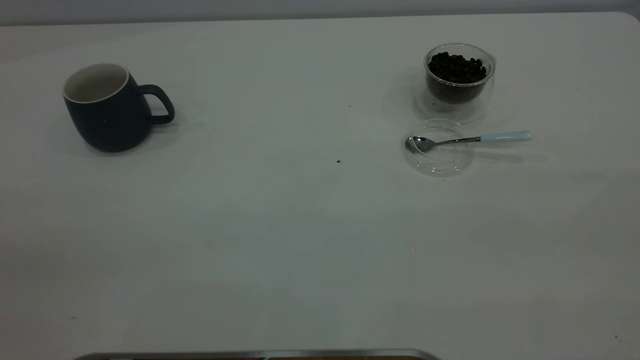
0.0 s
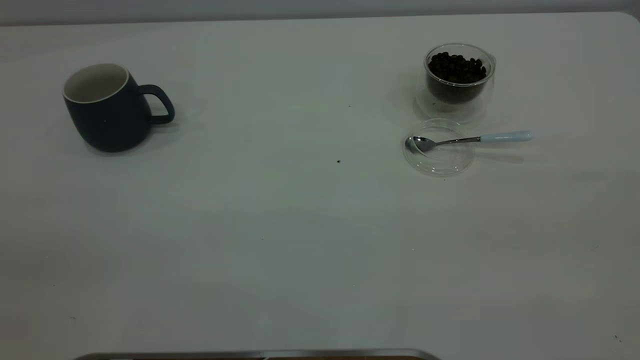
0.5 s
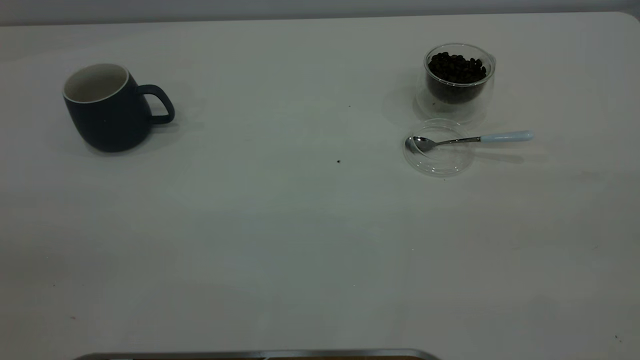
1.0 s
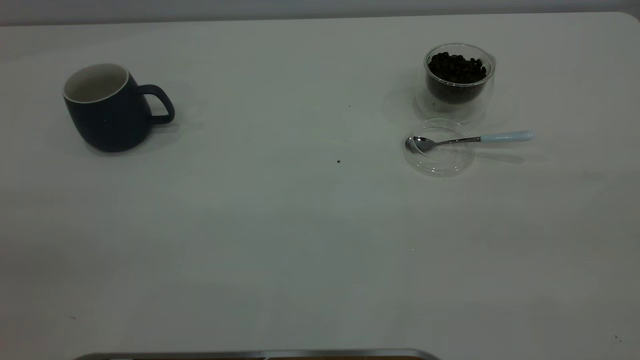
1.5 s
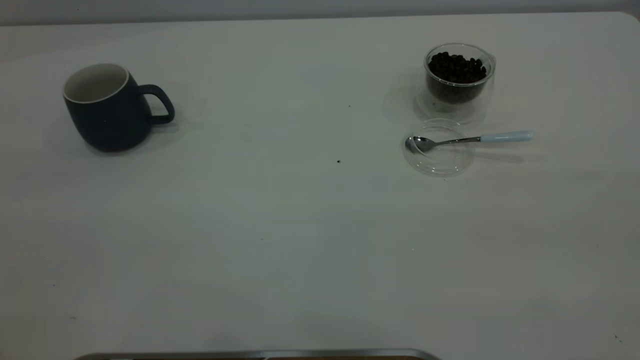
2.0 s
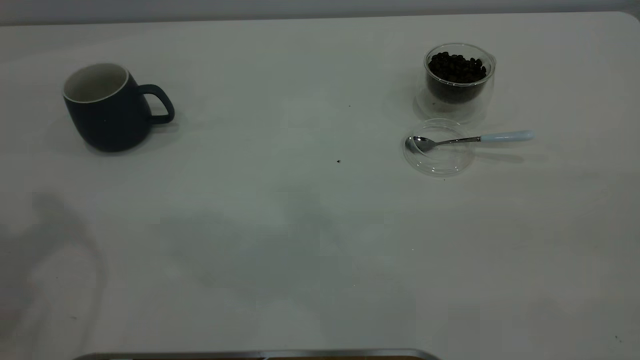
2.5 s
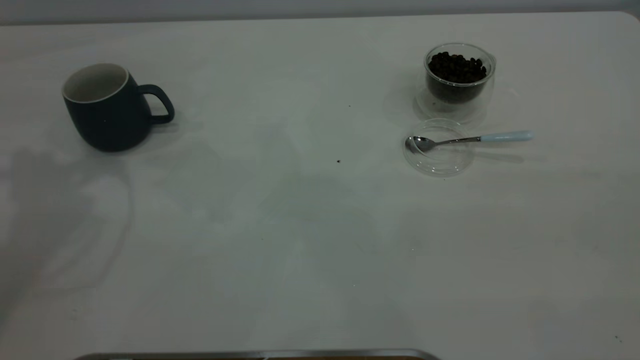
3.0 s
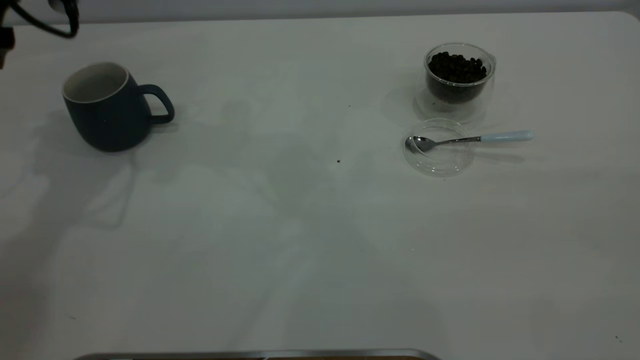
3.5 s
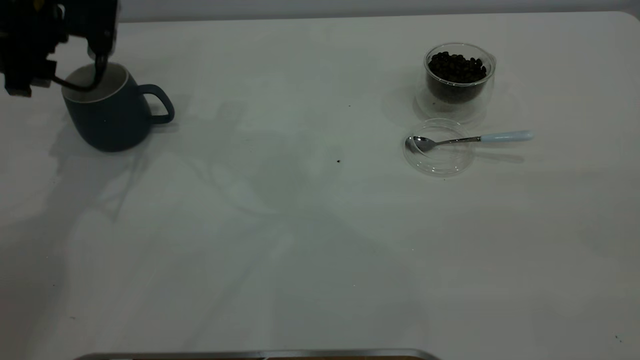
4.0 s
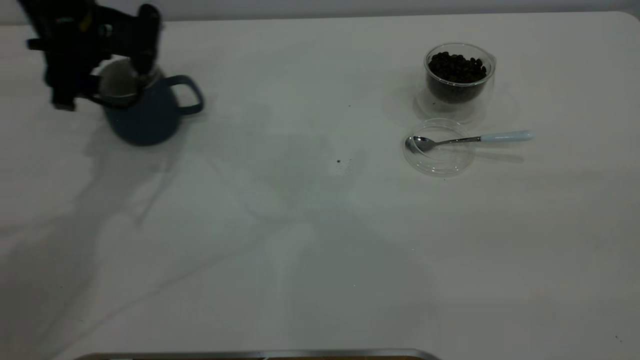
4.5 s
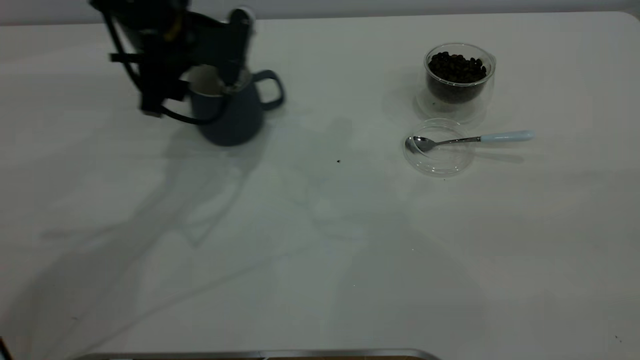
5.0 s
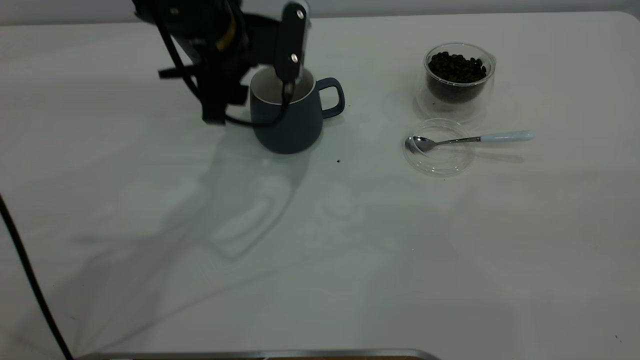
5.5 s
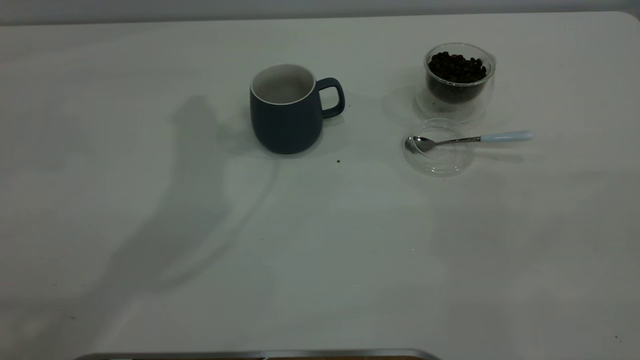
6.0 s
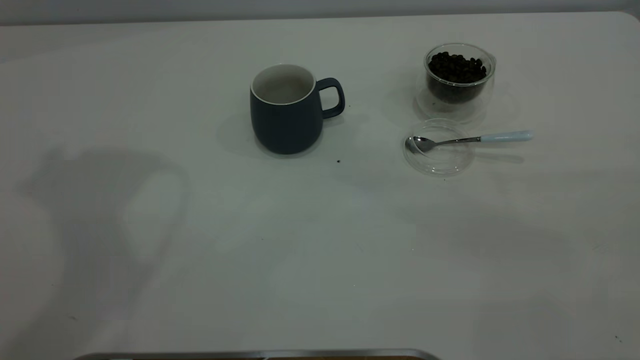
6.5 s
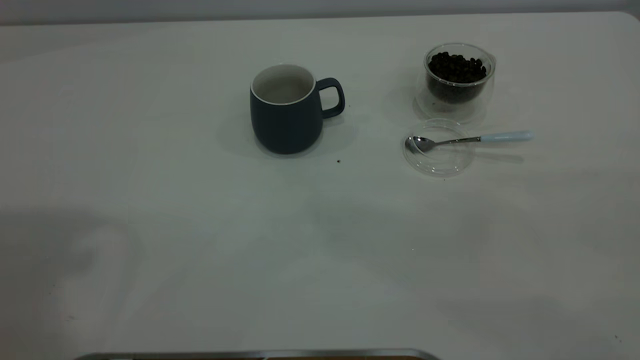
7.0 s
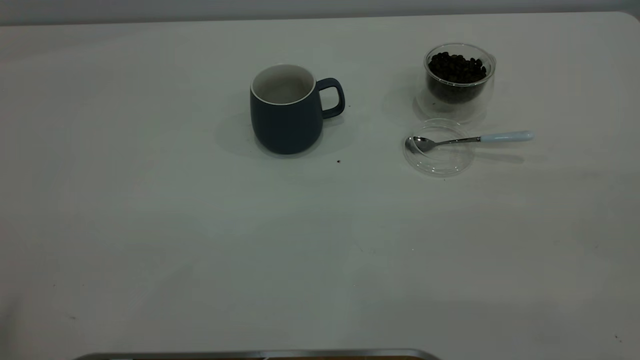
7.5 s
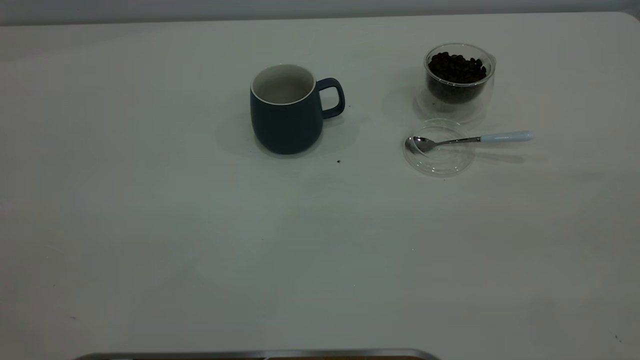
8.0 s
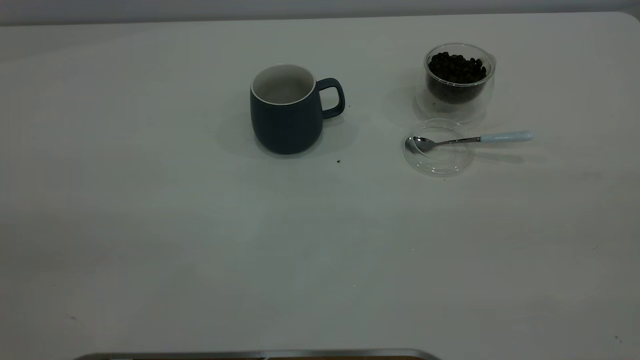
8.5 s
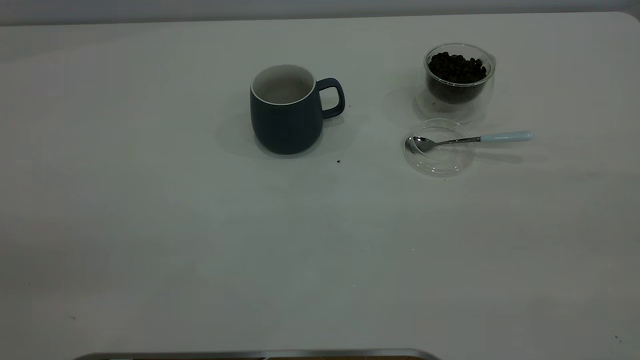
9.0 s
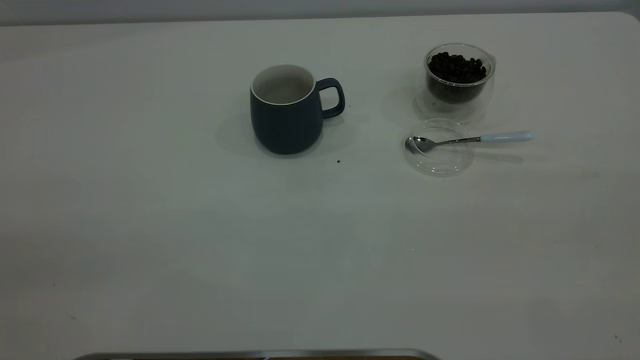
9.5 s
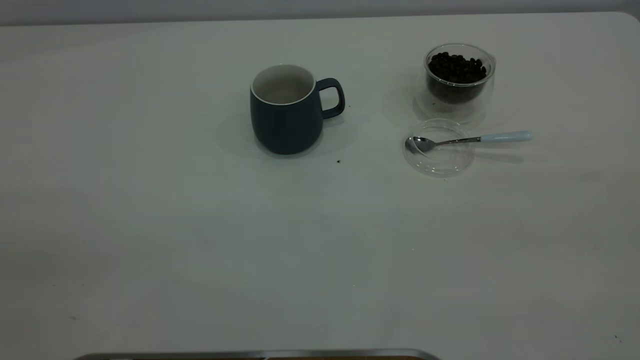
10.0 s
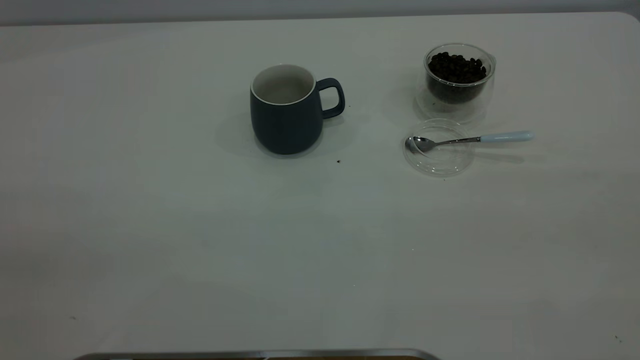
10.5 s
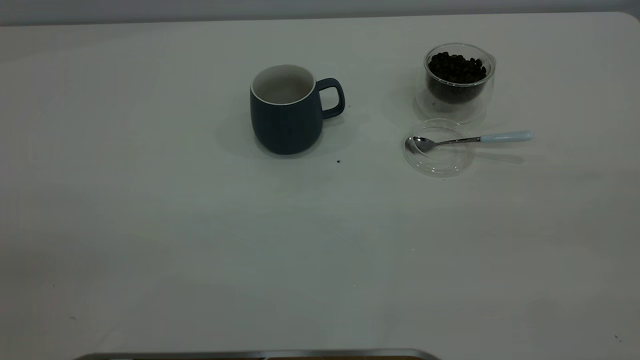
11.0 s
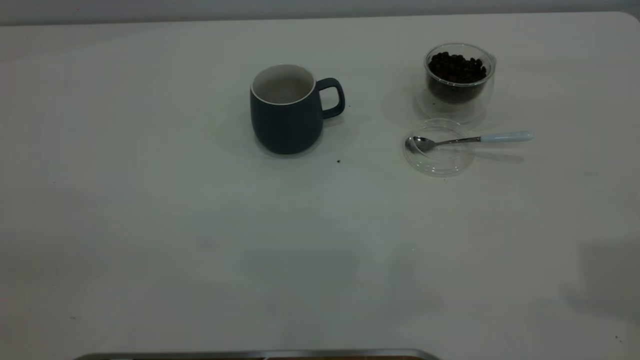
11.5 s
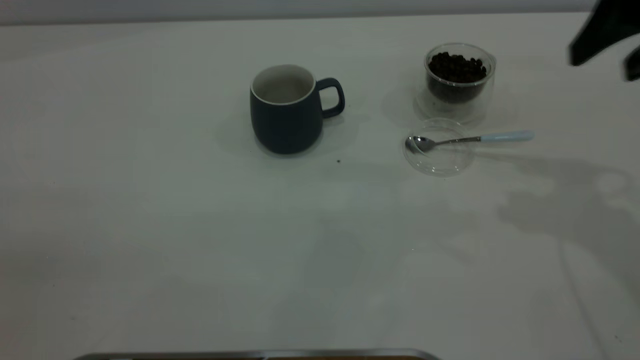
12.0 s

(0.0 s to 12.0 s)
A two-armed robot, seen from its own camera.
Task of the whole recording: the left gripper place the grey cup in the center of the table, the right gripper take the blue spoon from the cup lid and scoop out the coffee beans from the coffee cup and put them into the grey cup, the right gripper put the spoon back into the cup lid.
Step, 0.0 s - 5.5 s: Move the cup to the center of view.
2.0 s - 4.0 s: The left gripper is displaced forward and downward by approximately 40 cm.
4.0 s - 6.0 s: The left gripper goes about 25 cm upward and to the right.
10.0 s - 12.0 s: The right gripper moves forward, about 30 cm.

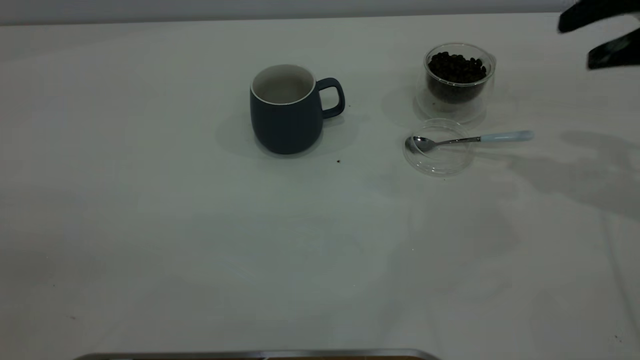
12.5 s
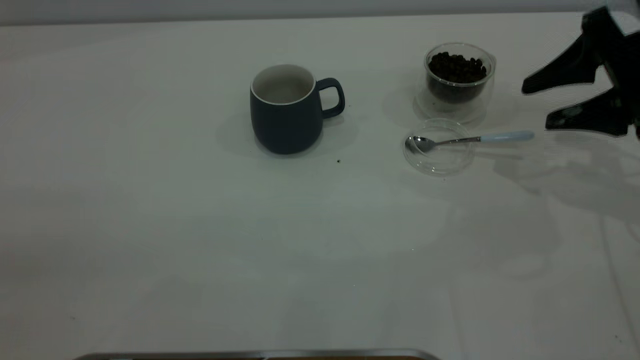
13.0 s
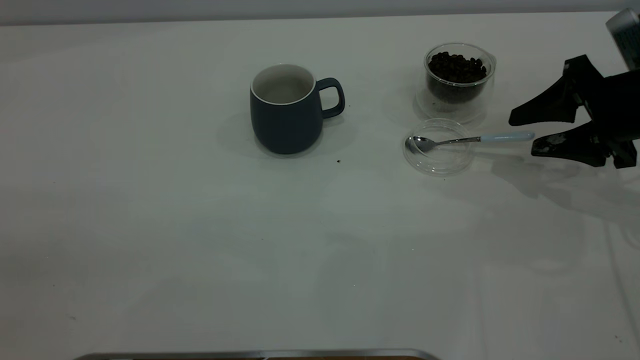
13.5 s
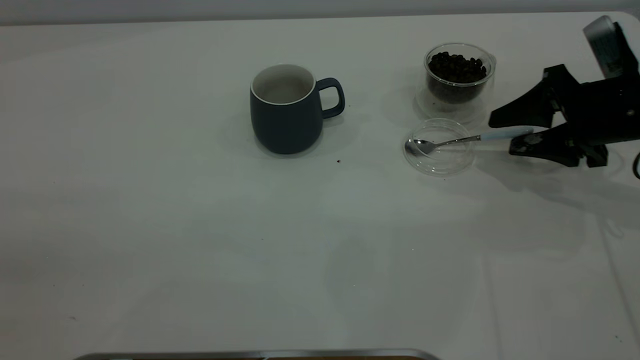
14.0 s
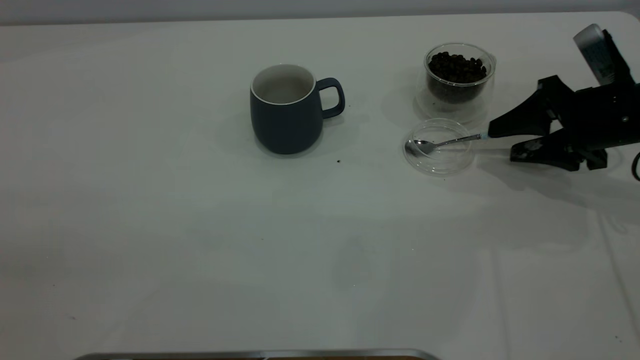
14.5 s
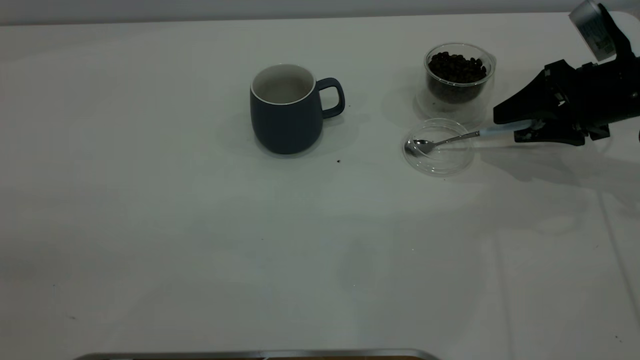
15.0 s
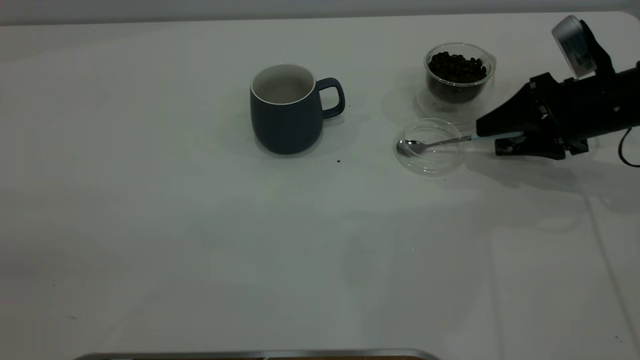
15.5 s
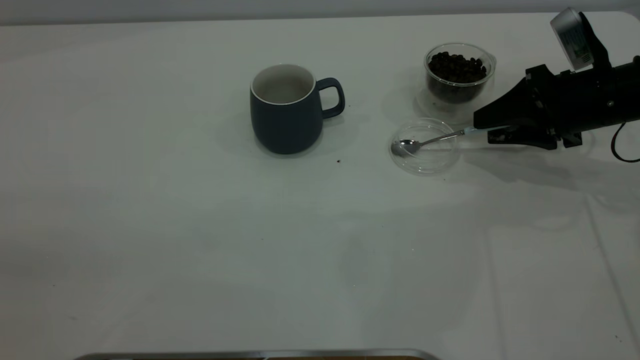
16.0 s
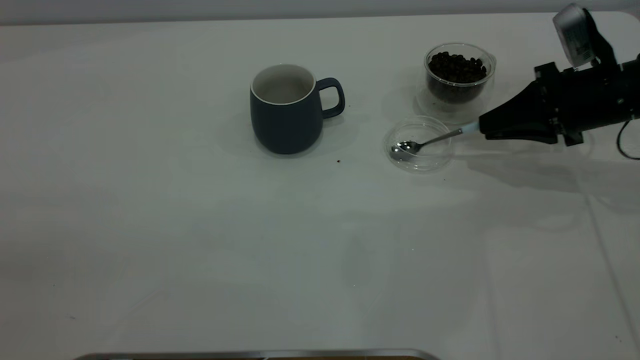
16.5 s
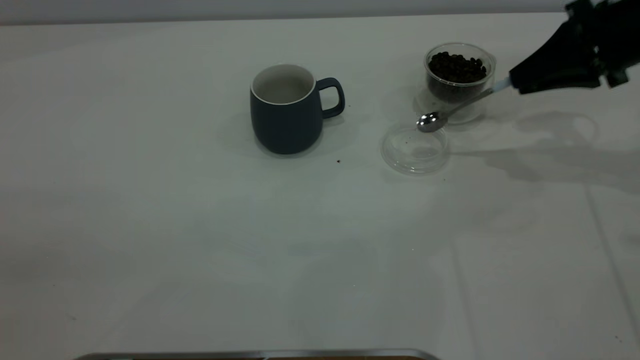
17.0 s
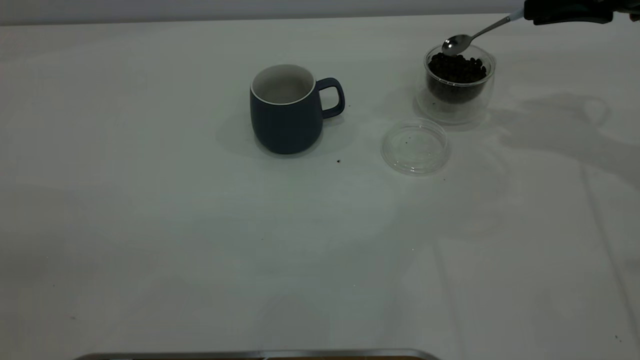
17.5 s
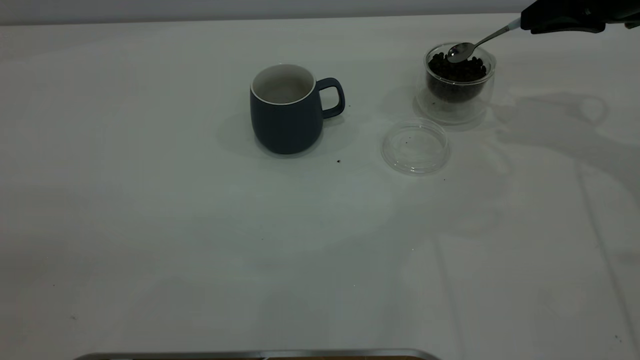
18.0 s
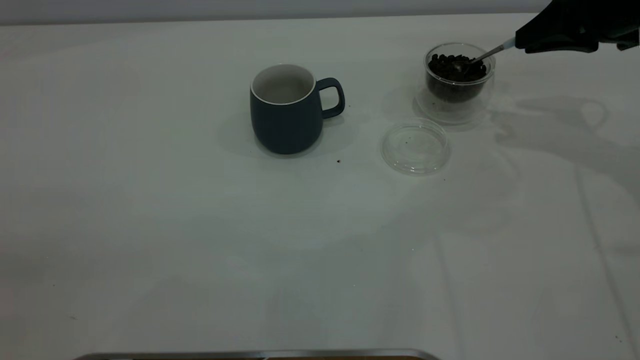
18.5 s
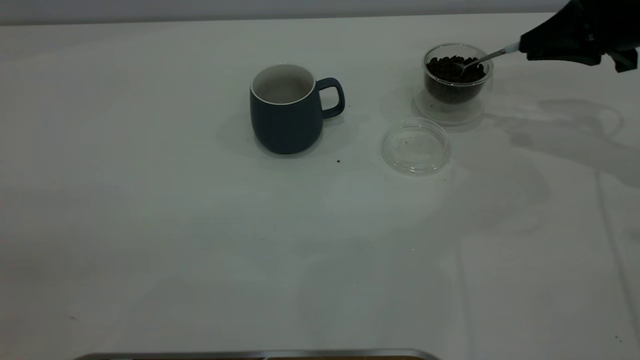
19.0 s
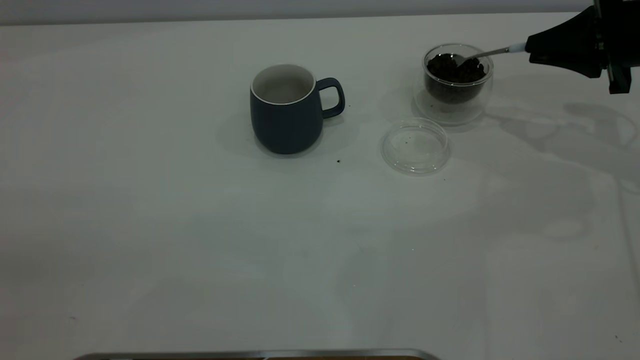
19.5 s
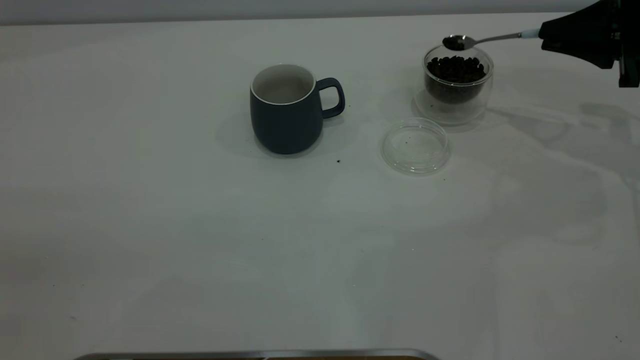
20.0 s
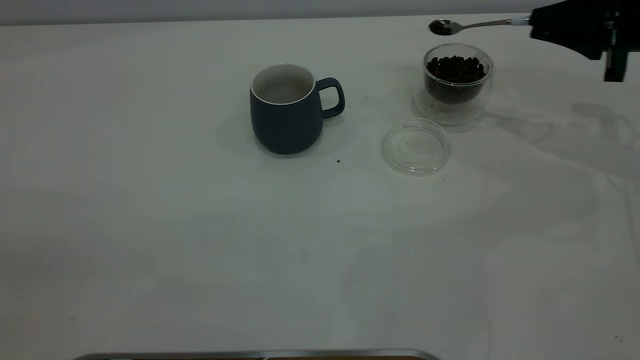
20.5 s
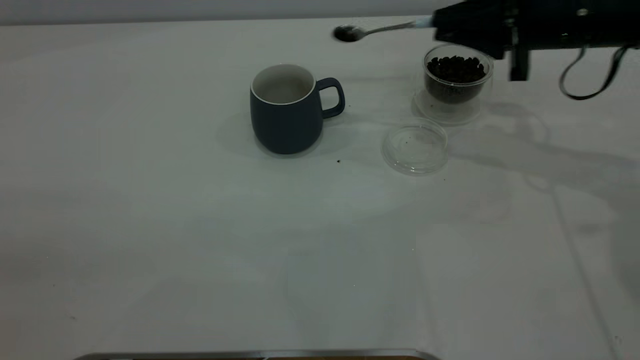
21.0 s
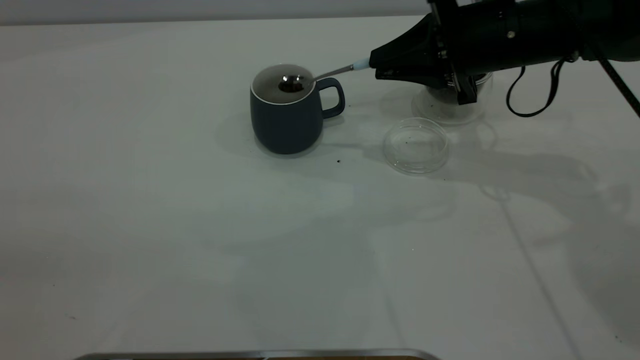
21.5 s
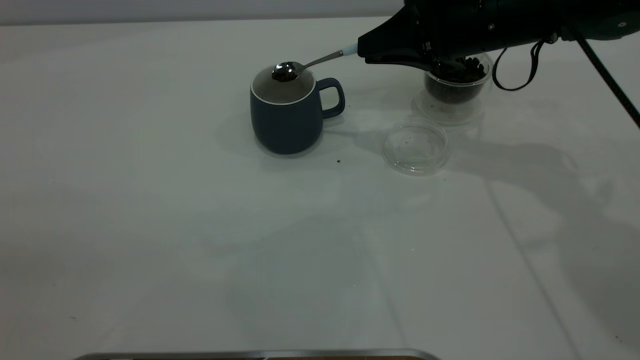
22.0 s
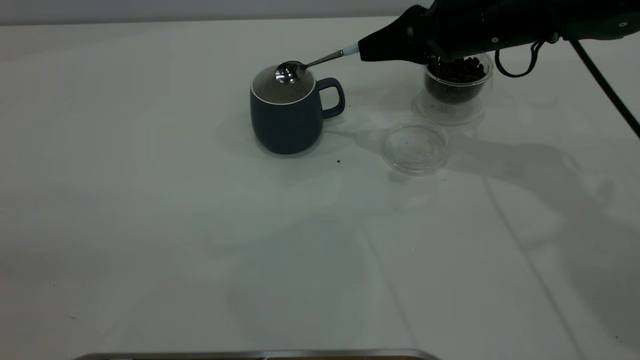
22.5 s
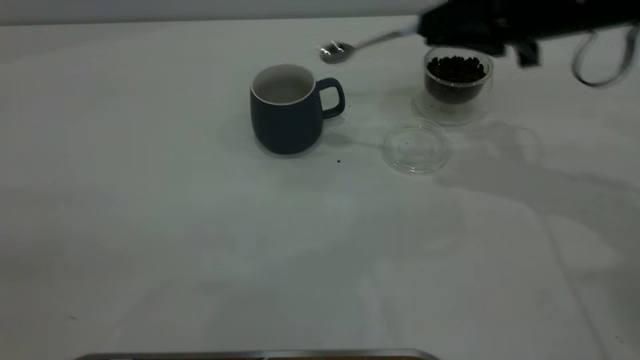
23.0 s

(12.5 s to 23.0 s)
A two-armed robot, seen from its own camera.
Task of the whole recording: the left gripper place the grey cup in the center of the table, the right gripper take the blue spoon from the cup lid and scoop out the coffee beans from the coffee cup and put them into the grey cup, the right gripper put the spoon back into the cup lid.
Step, 12.5 s - 16.5 s: Pick up the spoon.
Step, 17.5 s - 22.5 s: Scoop a spoonful of beans into the cup.
12.5 s - 14.5 s: The right gripper moves downward, approximately 15 cm.
14.5 s - 16.5 s: The right gripper closes.
16.5 s - 19.0 s: The right gripper shifts some 5 cm upward.
19.0 s - 21.0 s: The right gripper moves to the left, some 10 cm.
21.0 s - 23.0 s: The right gripper shifts by approximately 5 cm.
